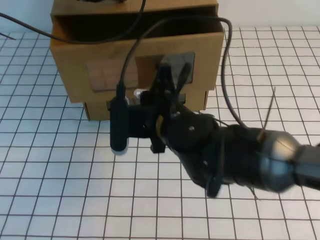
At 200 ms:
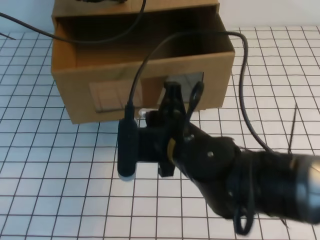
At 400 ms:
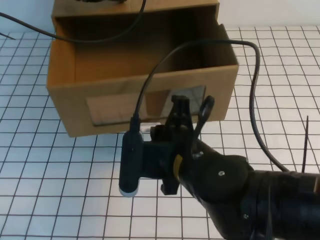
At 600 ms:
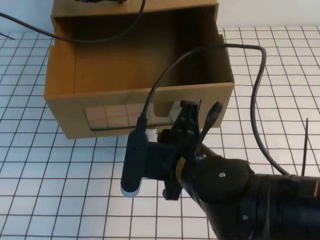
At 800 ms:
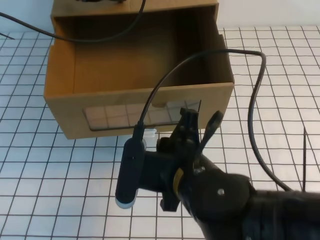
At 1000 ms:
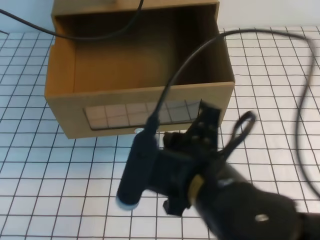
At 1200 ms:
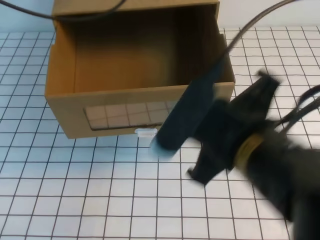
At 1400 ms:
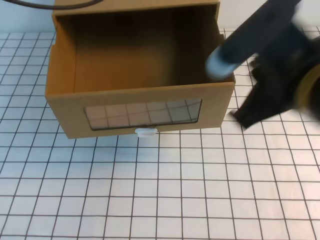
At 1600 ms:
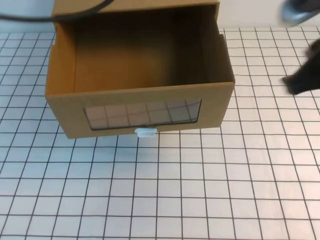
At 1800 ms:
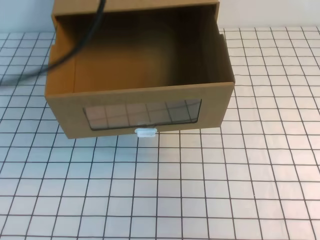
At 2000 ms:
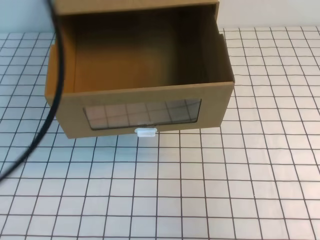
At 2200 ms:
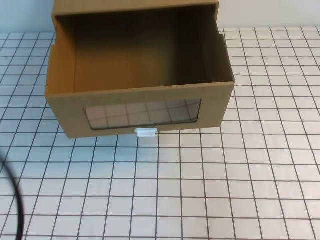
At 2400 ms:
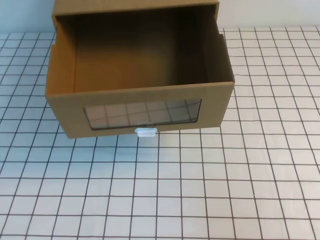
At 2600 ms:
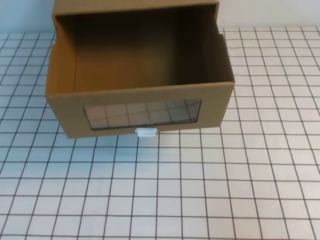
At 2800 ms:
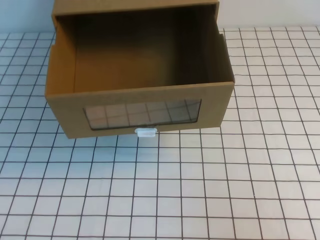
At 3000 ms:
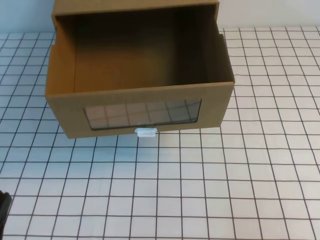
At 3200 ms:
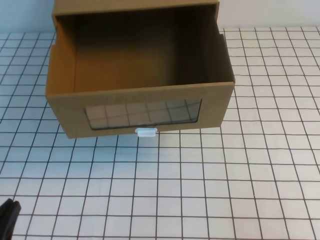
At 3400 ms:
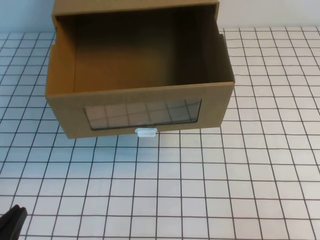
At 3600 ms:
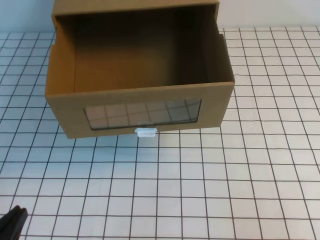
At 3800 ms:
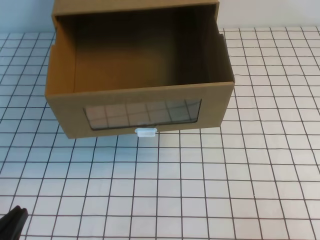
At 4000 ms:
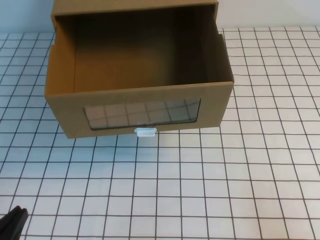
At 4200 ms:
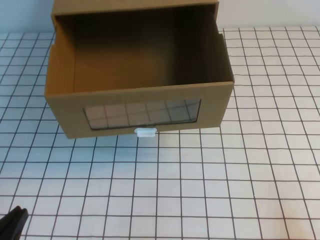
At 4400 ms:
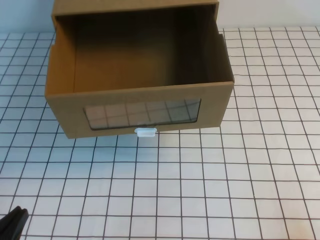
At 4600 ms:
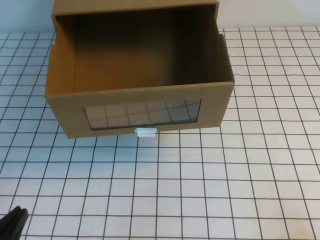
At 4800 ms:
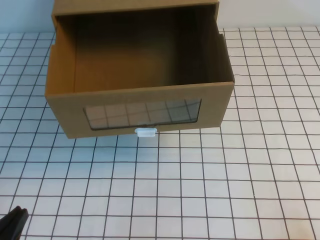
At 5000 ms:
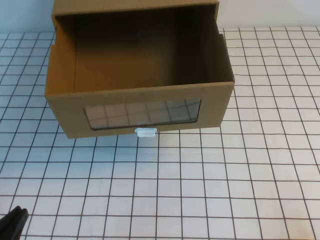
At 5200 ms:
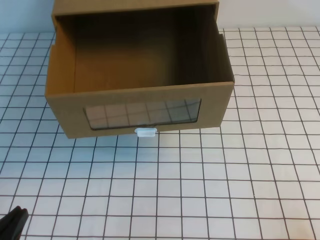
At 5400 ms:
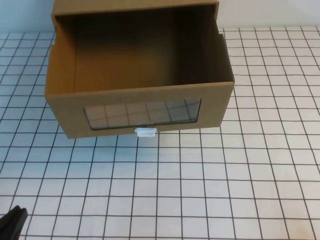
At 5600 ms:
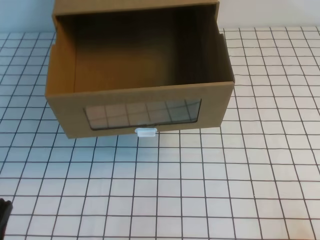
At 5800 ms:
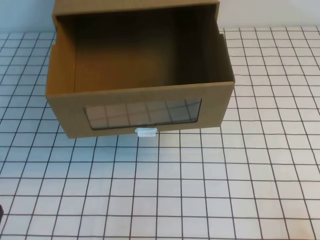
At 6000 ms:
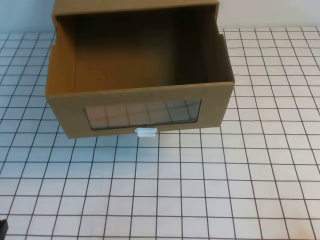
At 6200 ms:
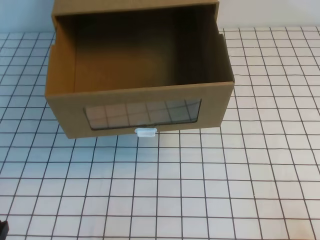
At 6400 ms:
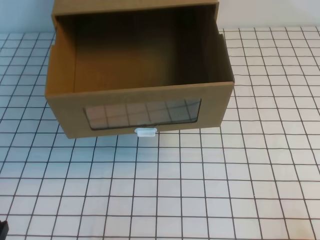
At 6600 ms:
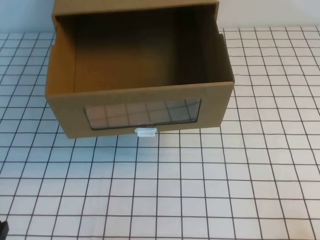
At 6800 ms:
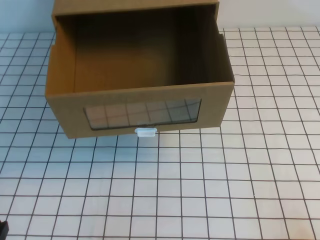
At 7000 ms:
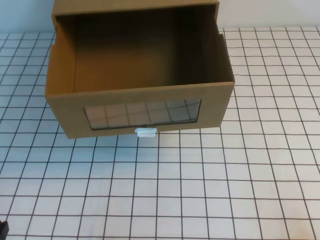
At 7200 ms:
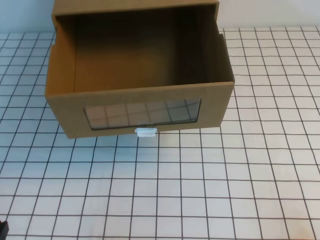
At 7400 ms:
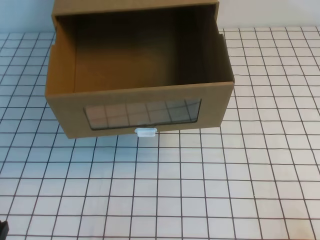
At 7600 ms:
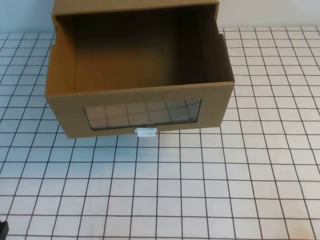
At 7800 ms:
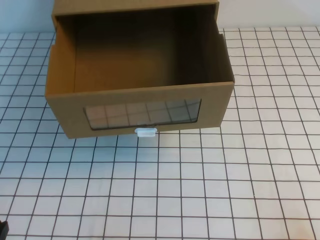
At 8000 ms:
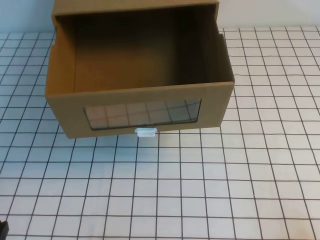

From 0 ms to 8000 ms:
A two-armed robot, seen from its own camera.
Task of the whole recording: open the shoebox on the white tablecloth.
Step, from 0 ms to 8000 ms: Open the shoe box.
From 0 ms to 1600 ms: The right gripper shifts approximately 25 cm to the right and upward. The left gripper heads backward and upward, covering approximately 20 cm.
From 1600 ms to 3200 ms: The right gripper travels backward, downward and to the right by roughly 25 cm; the left gripper heads downward and backward, covering some 40 cm.
From 6400 ms to 8000 ms: Neither gripper changes place.

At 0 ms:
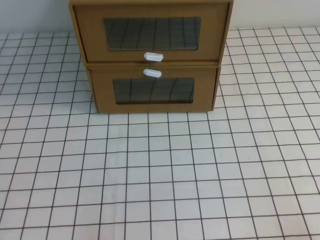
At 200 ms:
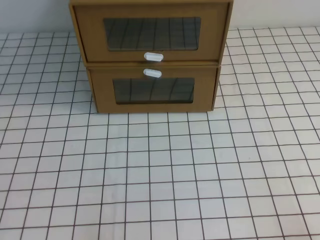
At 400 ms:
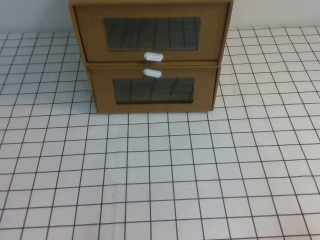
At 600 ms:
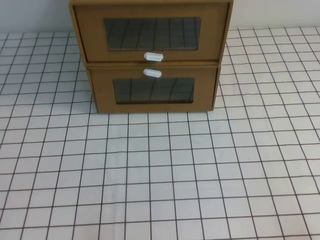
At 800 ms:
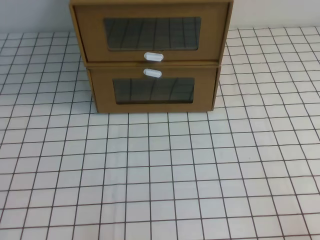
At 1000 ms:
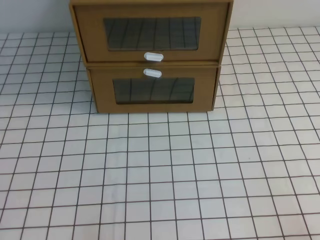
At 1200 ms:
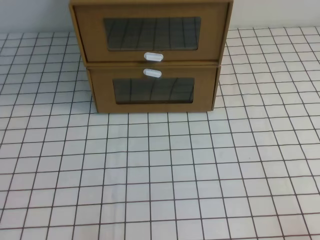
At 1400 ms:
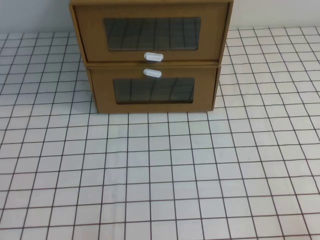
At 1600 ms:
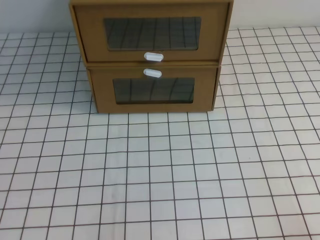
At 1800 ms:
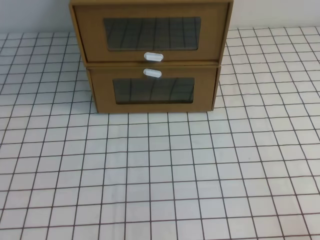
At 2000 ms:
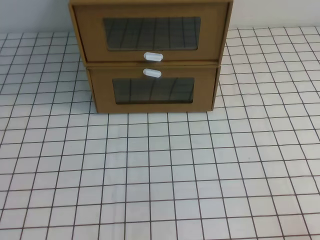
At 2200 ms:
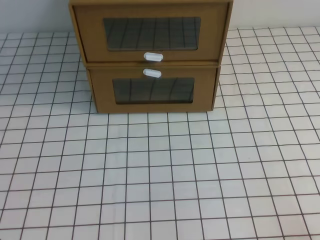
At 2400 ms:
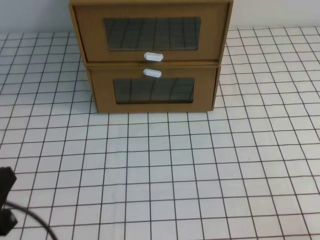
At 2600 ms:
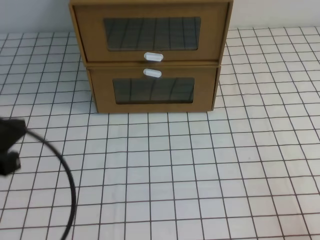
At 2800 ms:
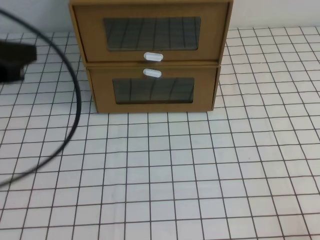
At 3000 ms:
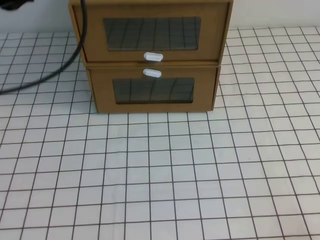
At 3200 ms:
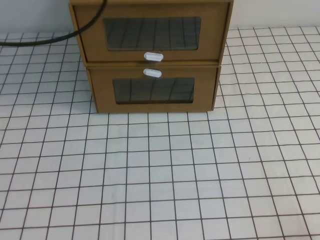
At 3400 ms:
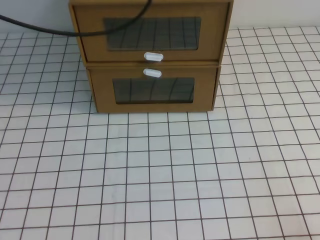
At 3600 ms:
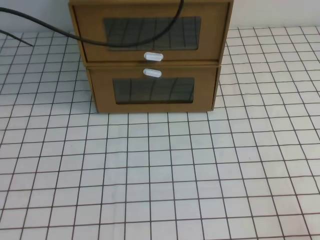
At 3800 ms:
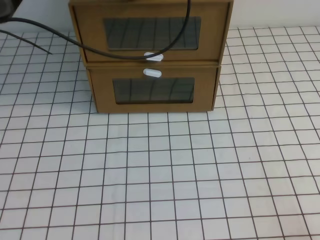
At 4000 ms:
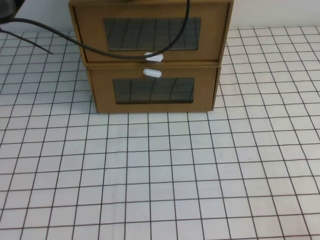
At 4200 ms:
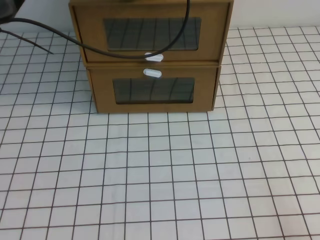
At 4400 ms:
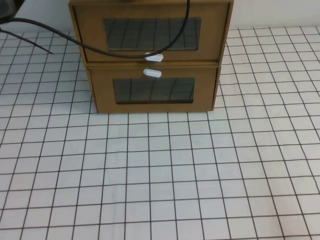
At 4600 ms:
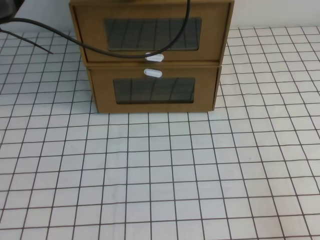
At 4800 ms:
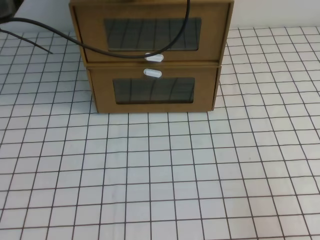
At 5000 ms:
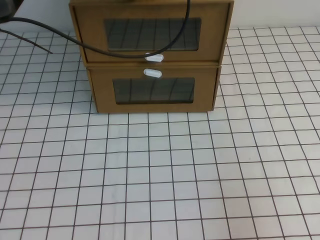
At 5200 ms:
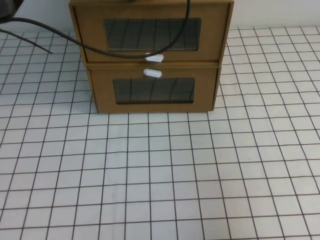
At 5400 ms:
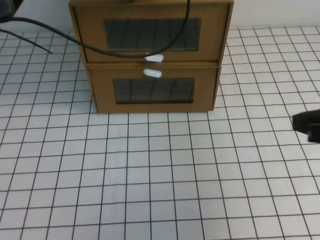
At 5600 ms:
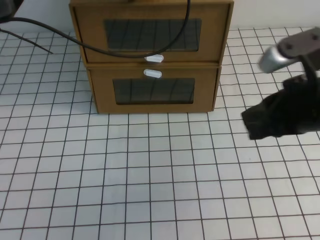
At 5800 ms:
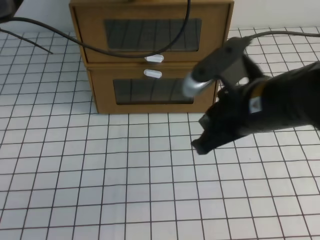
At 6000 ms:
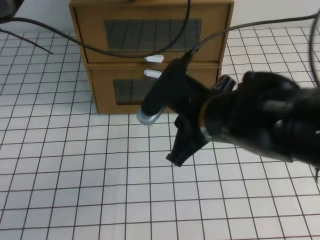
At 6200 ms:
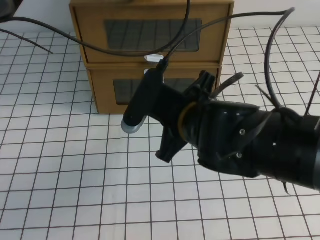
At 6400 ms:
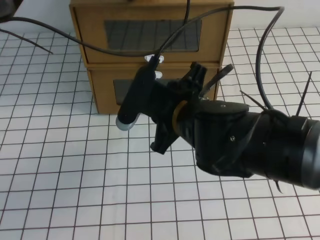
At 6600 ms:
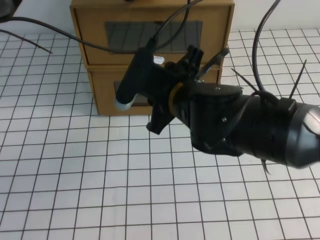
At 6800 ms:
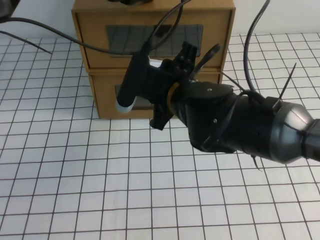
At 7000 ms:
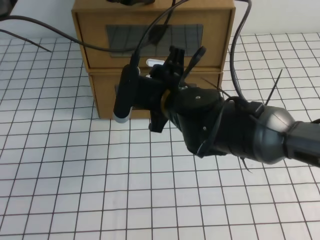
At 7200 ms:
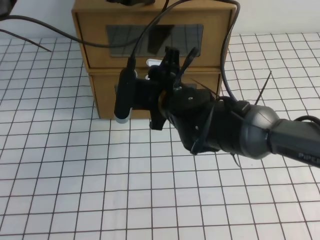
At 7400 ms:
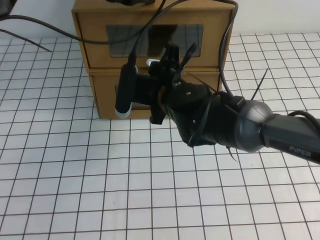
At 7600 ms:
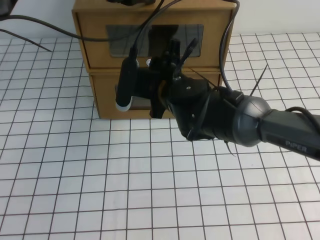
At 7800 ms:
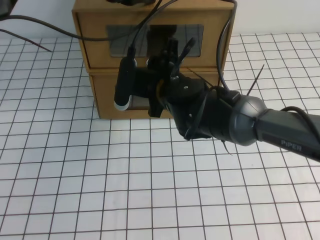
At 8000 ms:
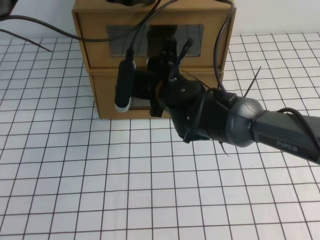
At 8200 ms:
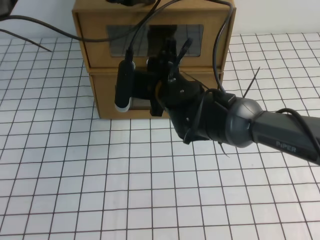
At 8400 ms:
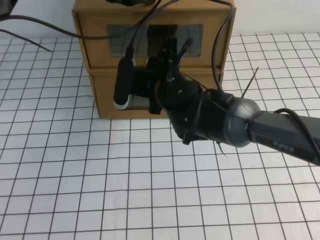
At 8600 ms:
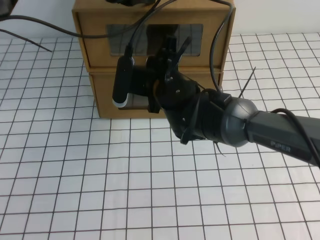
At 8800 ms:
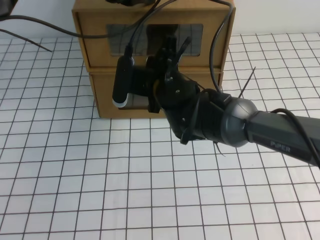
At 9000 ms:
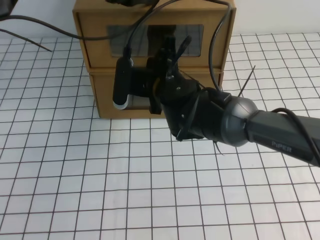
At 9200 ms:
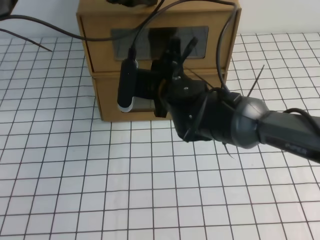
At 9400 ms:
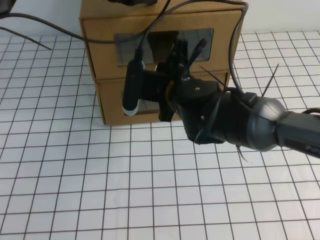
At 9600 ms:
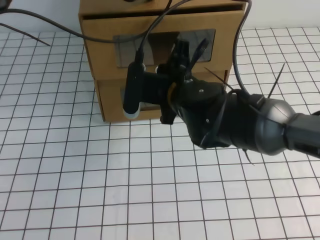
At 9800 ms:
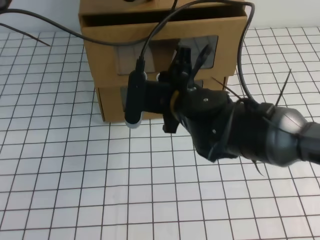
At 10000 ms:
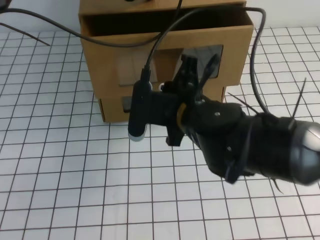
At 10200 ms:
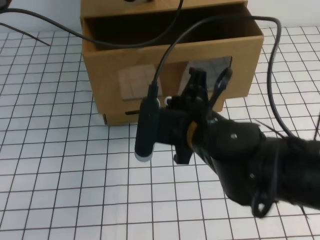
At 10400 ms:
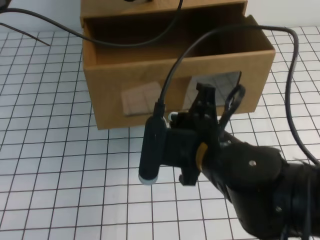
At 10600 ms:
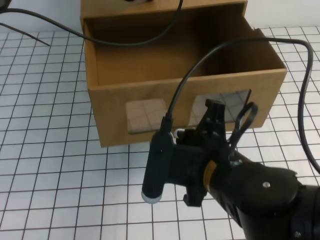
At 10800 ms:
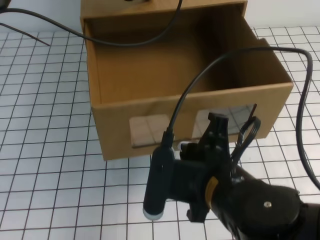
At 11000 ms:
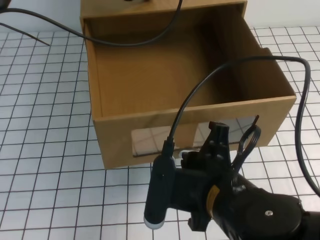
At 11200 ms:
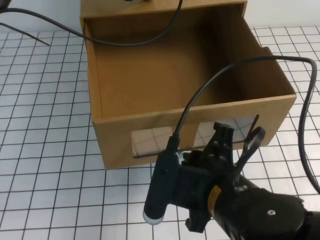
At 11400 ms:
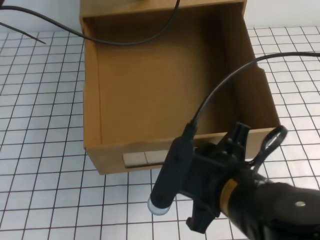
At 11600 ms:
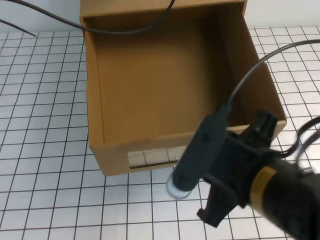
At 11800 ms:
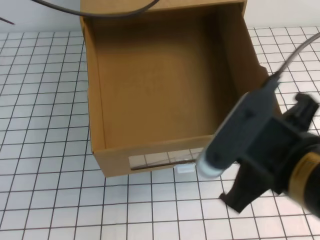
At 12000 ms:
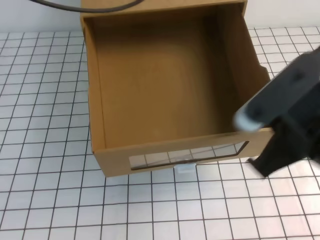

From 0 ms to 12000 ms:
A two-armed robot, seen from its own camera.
Task of the whole recording: open the shoebox on the white tablecloth.
From 1600 ms to 3000 ms: The left gripper shifts some 35 cm upward and forward.
From 3000 ms to 4400 ms: The left gripper heads forward and to the right, covering some 20 cm.
From 4400 ms to 6000 ms: The right gripper is displaced to the left, forward and upward by approximately 30 cm.
From 6000 ms to 7600 ms: The right gripper shifts about 15 cm forward and to the left, and opens its fingers.
From 7600 ms to 9000 ms: The right gripper closes.
From 9000 ms to 10400 ms: The right gripper shifts about 15 cm backward.
From 10400 ms to 12000 ms: The left gripper moves upward and backward, some 15 cm; the right gripper travels to the right, upward and backward by approximately 15 cm, and opens, then closes again.

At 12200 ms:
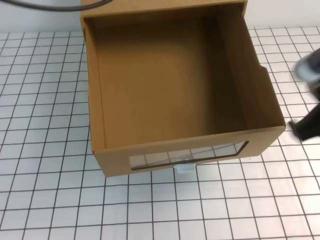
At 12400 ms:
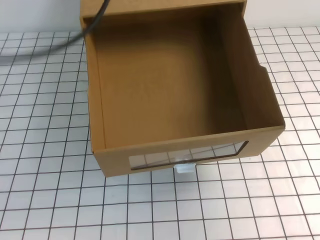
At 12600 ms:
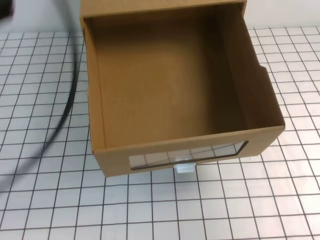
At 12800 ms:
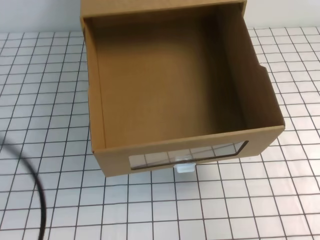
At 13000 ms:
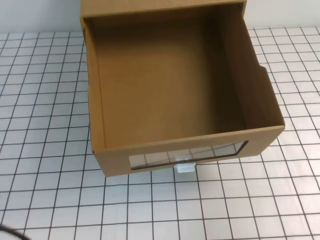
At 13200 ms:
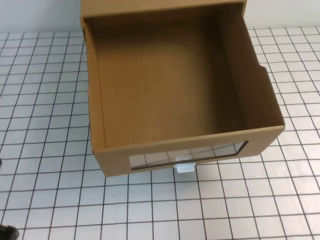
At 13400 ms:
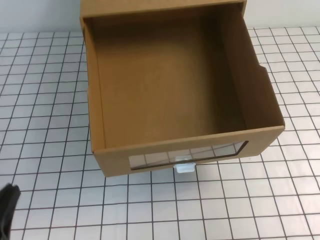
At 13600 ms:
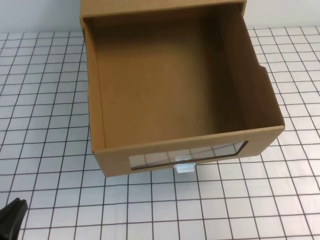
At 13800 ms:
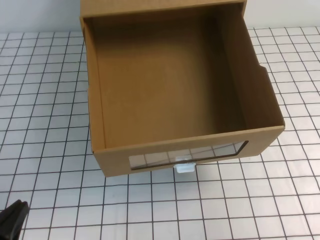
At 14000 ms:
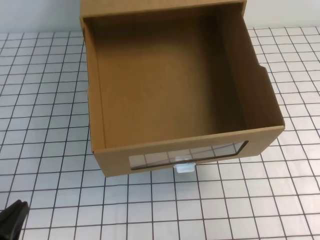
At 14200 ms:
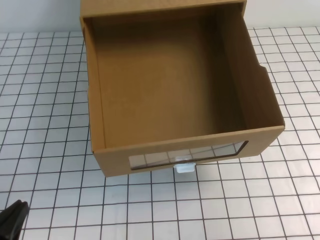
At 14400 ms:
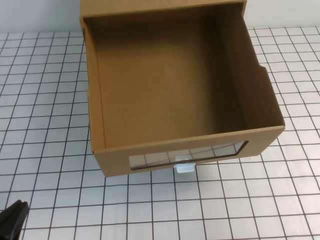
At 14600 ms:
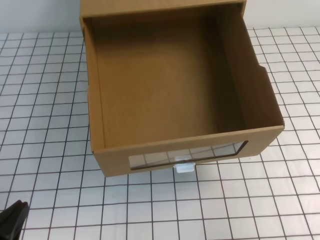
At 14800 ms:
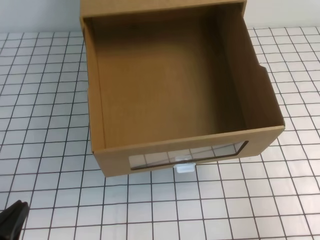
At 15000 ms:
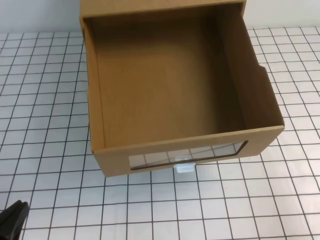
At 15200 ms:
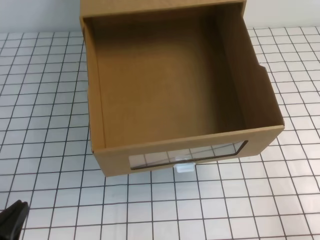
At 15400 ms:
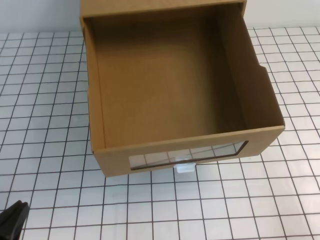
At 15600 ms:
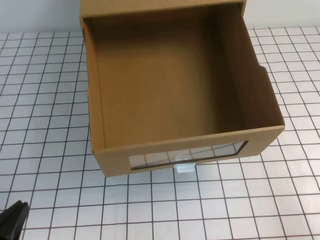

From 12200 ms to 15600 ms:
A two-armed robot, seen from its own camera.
Task of the whole recording: open the shoebox on the white tablecloth.
From 12200 ms to 13800 ms: The right gripper goes roughly 10 cm to the right, while the left gripper moves downward and backward, about 40 cm.
From 13800 ms to 15600 ms: The right gripper heads downward and backward, covering about 15 cm.
